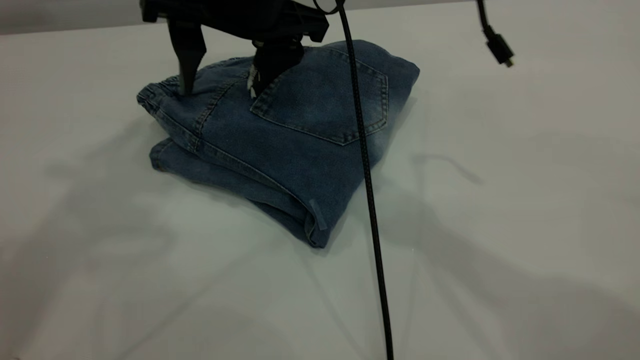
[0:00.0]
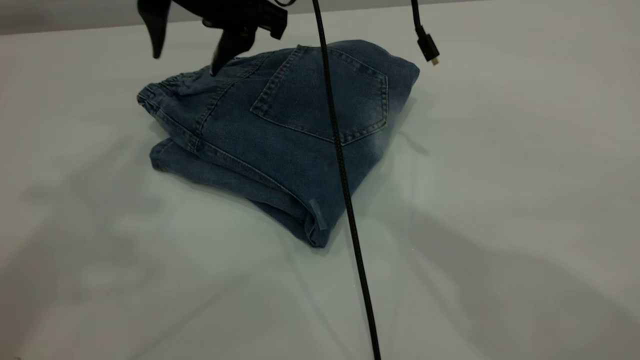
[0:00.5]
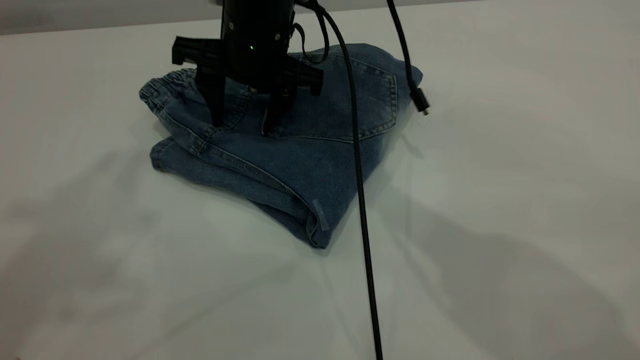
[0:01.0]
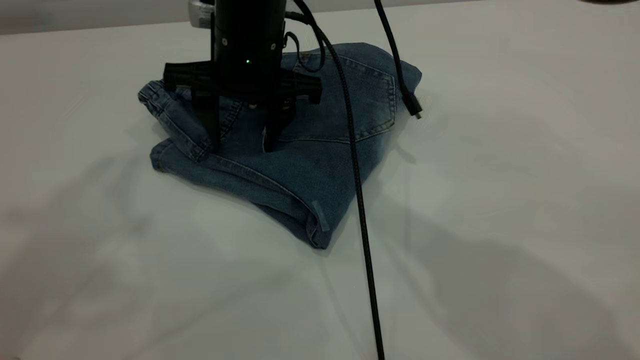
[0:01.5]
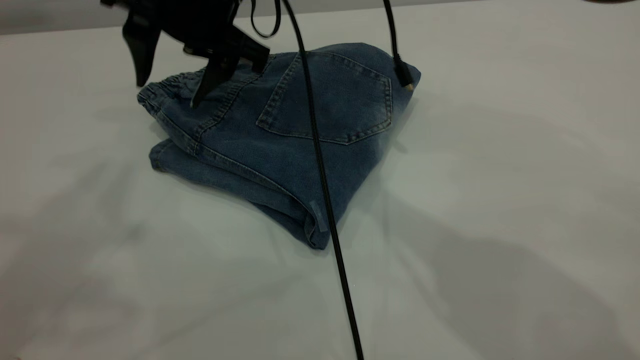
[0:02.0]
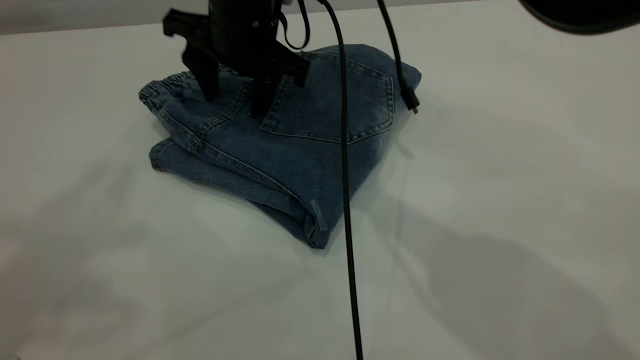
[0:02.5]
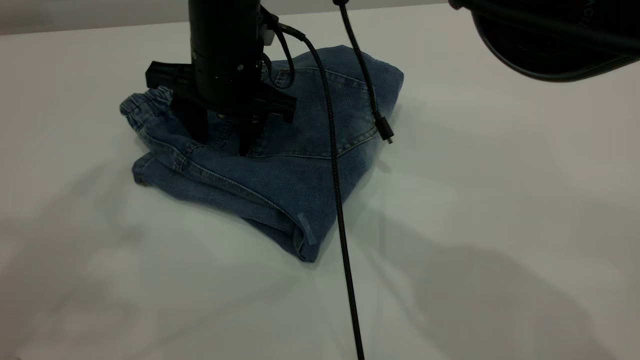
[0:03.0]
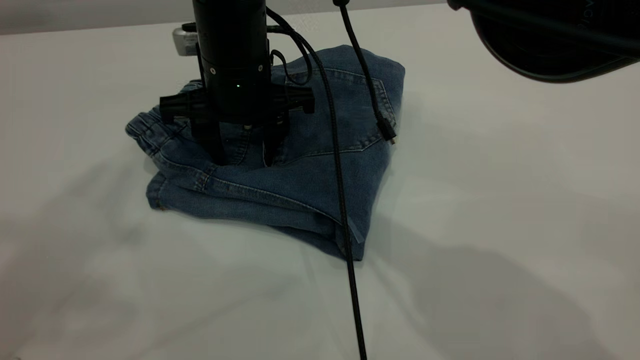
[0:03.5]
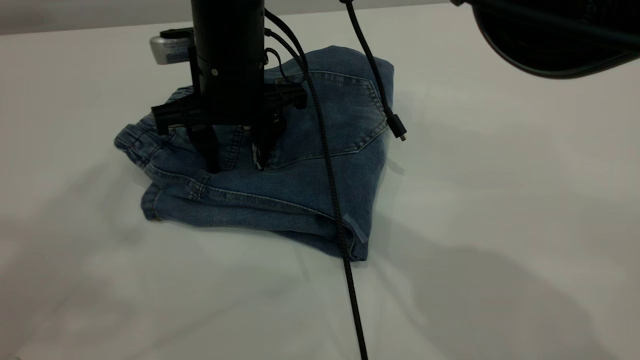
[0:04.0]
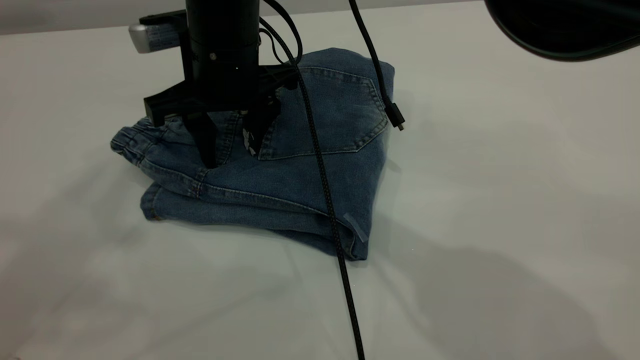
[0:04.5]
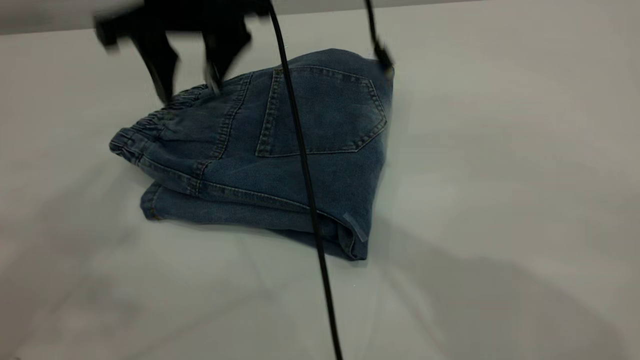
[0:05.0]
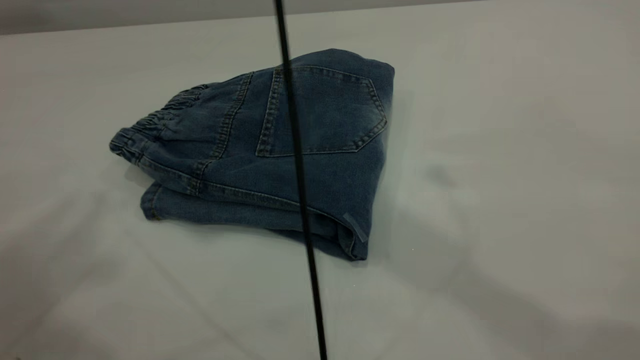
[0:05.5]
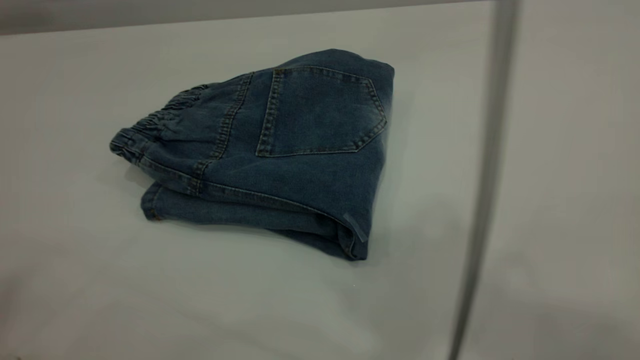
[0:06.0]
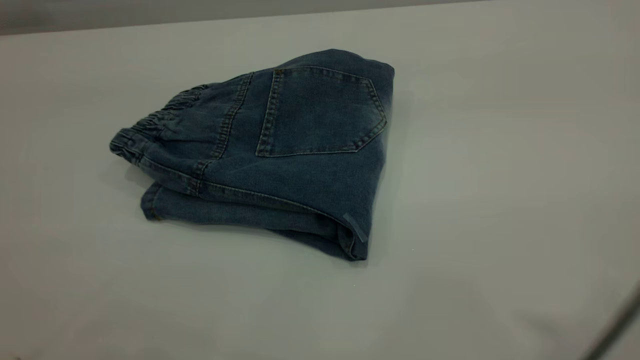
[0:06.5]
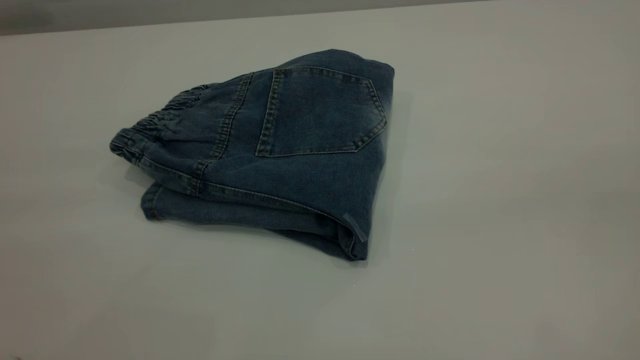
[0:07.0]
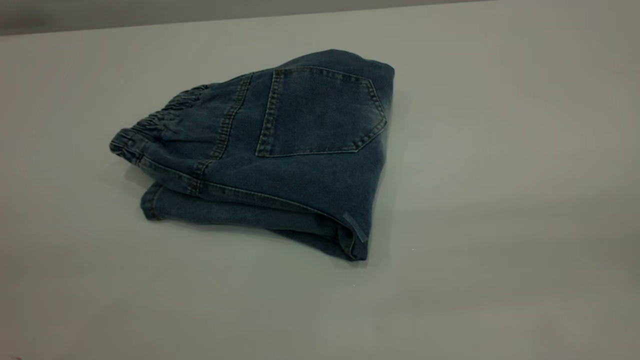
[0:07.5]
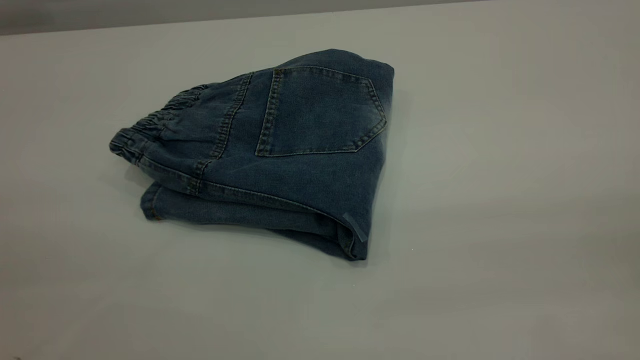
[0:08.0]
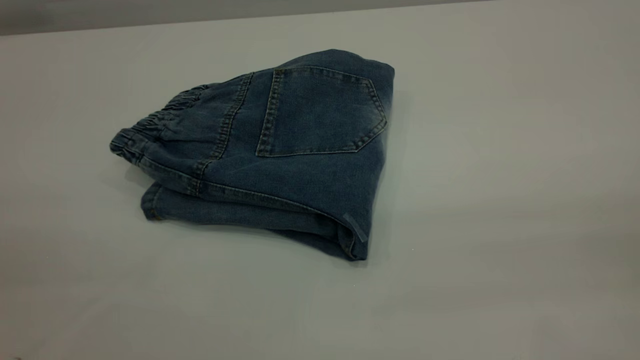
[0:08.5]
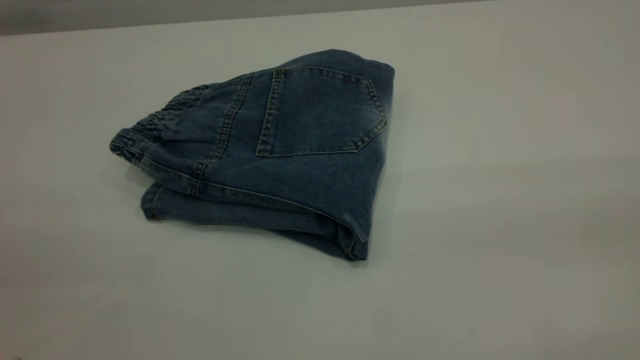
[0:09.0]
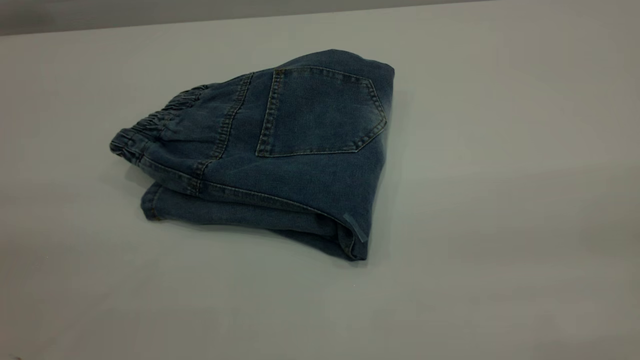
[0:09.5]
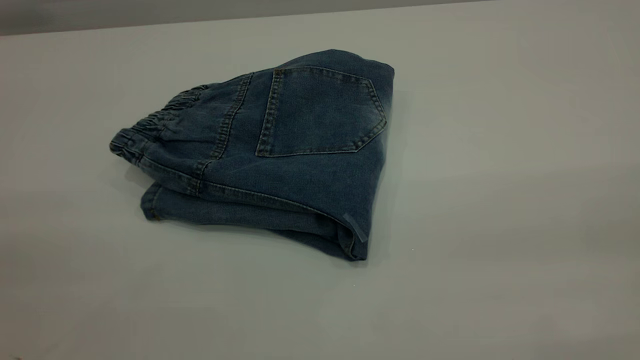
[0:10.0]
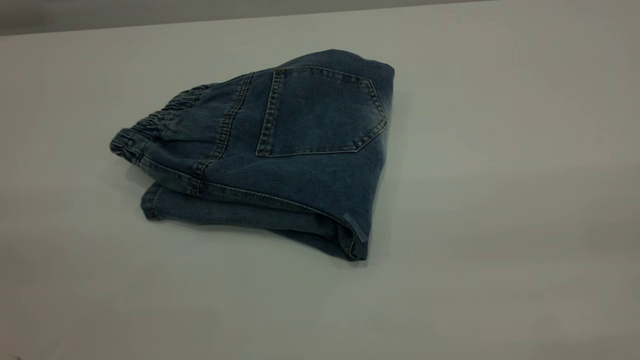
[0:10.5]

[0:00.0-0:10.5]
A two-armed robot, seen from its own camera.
0:00.0 to 0:02.0: The left gripper heads backward, covering approximately 5 cm, while the right gripper changes place by some 5 cm.
0:02.0 to 0:04.0: The right gripper is displaced downward by about 5 cm.
0:04.0 to 0:06.5: The right gripper shifts some 50 cm upward, to the right and backward. The left gripper travels backward by roughly 15 cm.
0:06.5 to 0:08.5: The right gripper heads downward, to the right and backward, covering some 20 cm.

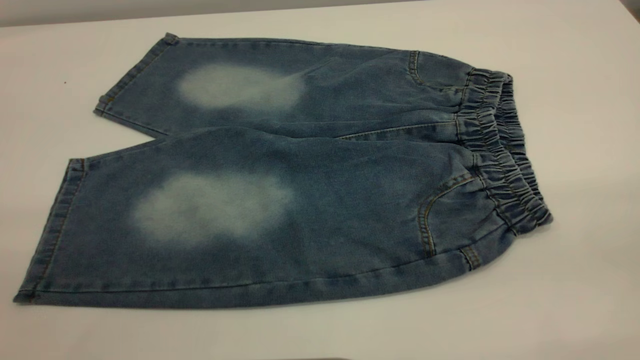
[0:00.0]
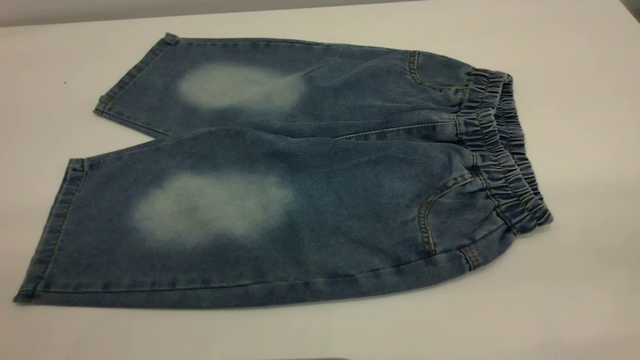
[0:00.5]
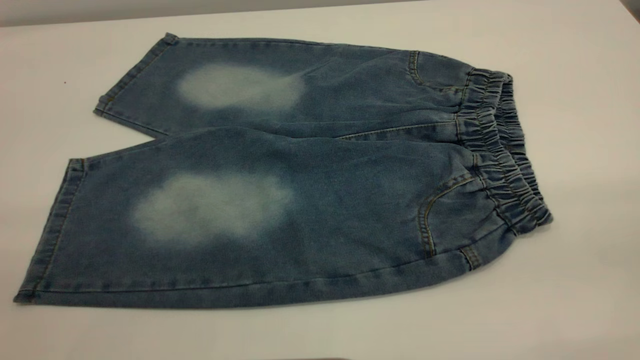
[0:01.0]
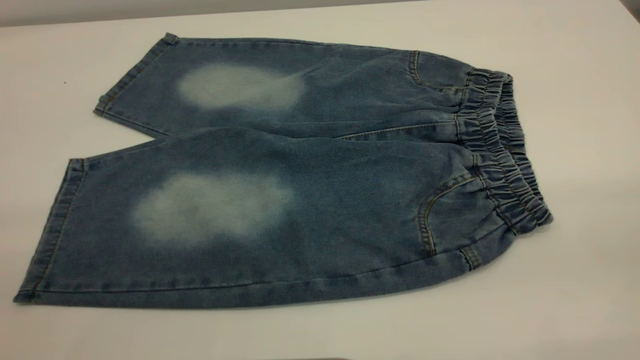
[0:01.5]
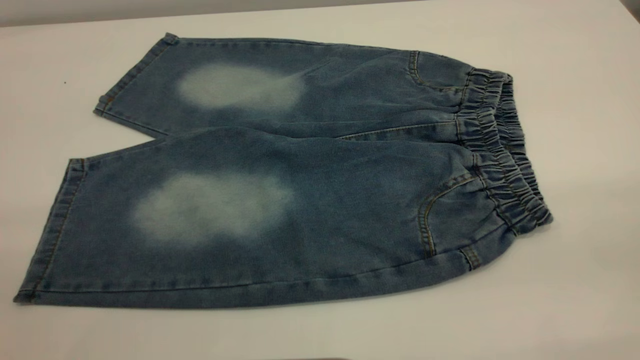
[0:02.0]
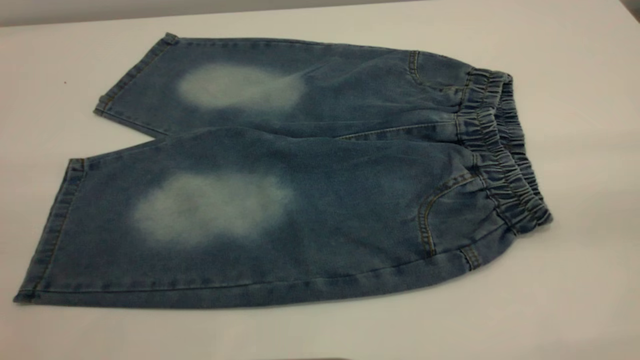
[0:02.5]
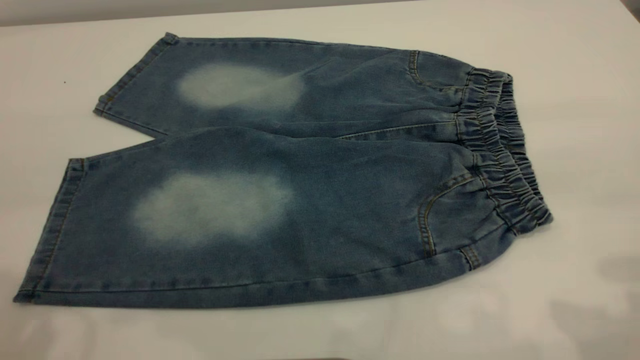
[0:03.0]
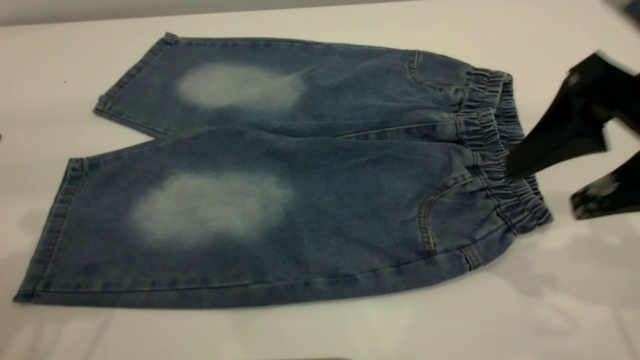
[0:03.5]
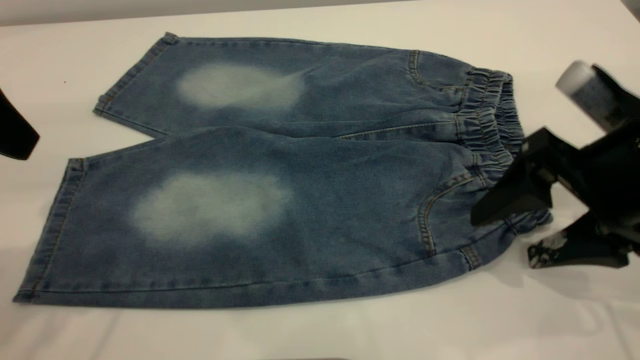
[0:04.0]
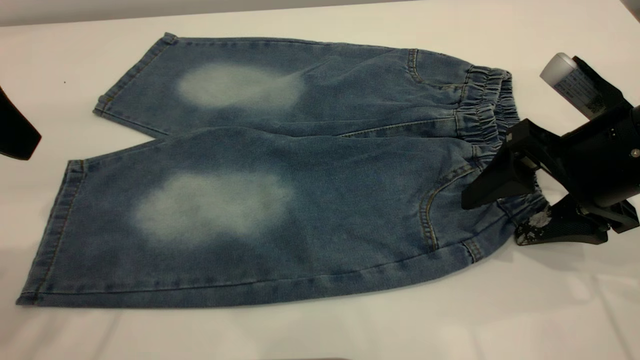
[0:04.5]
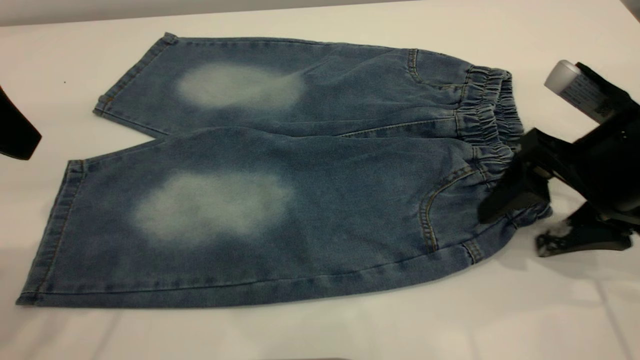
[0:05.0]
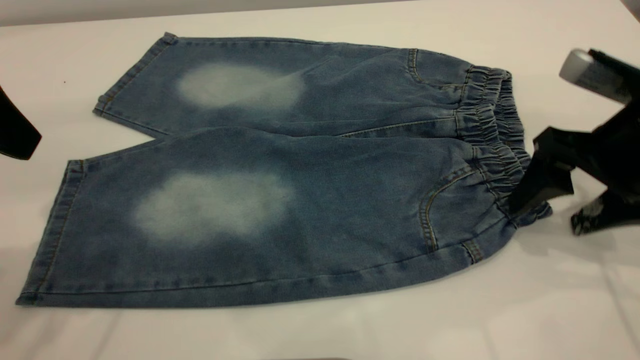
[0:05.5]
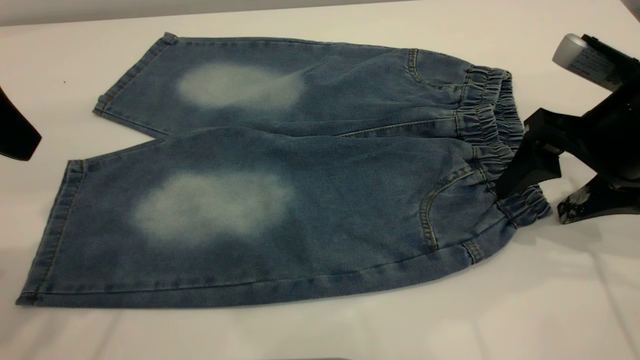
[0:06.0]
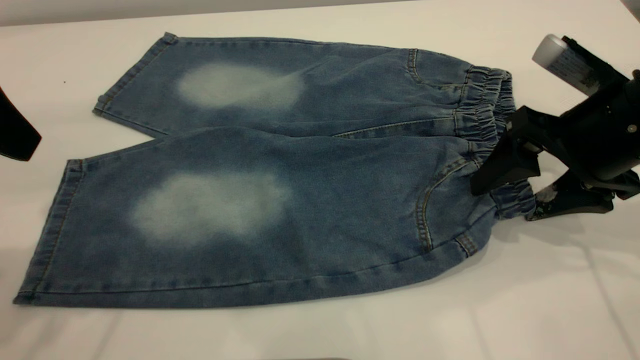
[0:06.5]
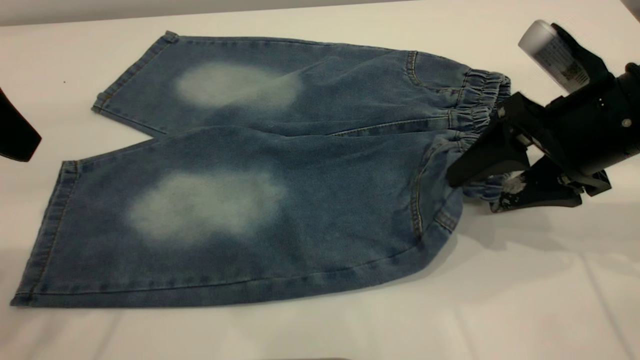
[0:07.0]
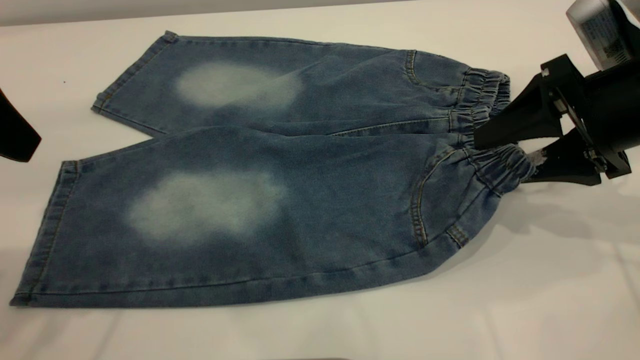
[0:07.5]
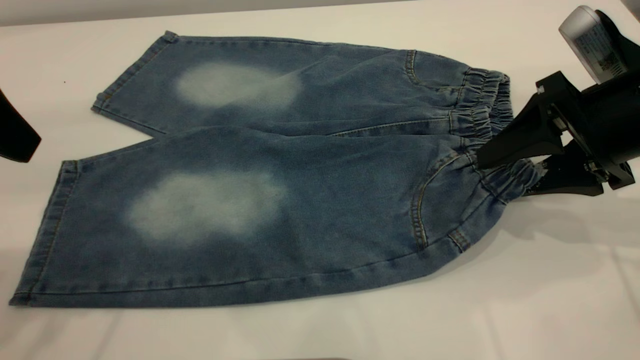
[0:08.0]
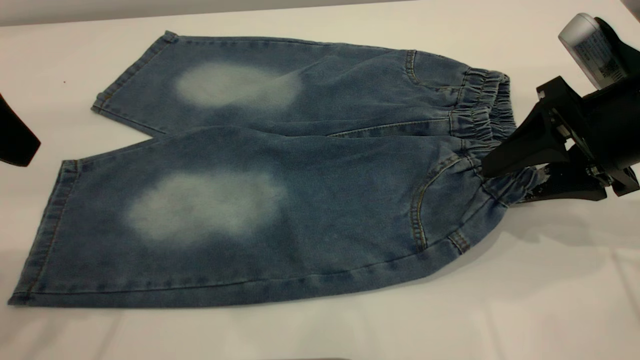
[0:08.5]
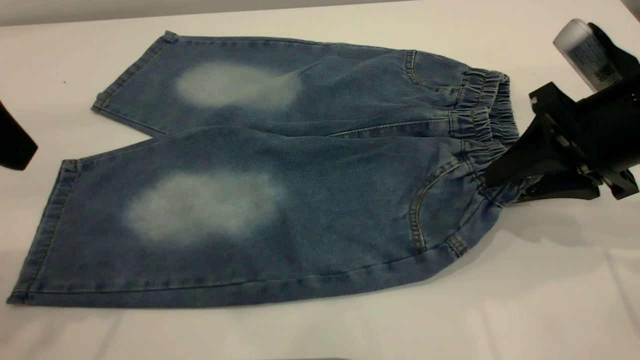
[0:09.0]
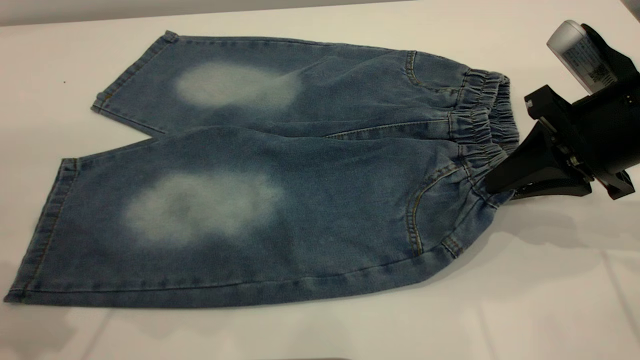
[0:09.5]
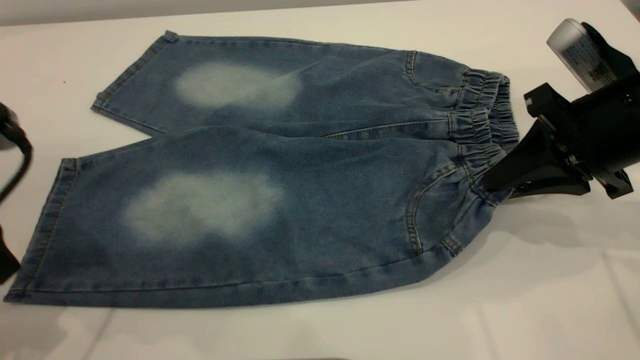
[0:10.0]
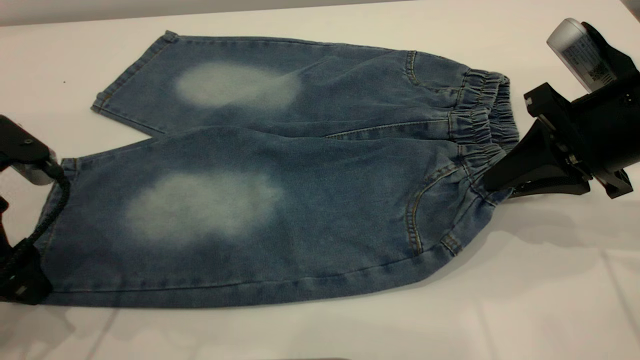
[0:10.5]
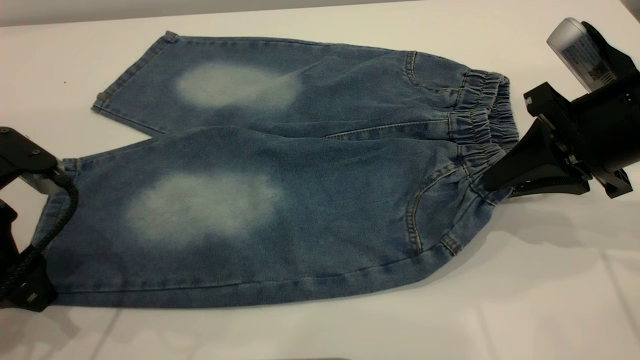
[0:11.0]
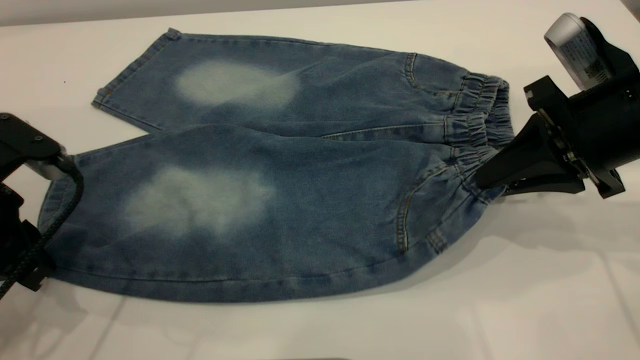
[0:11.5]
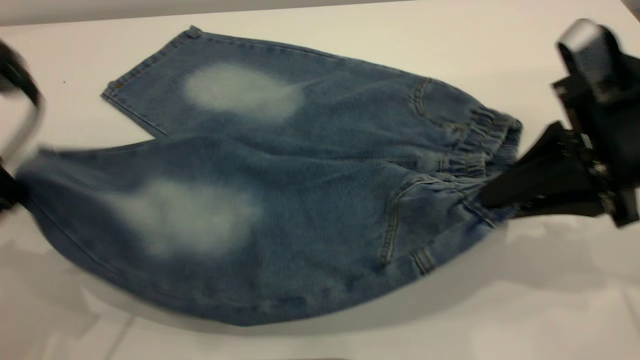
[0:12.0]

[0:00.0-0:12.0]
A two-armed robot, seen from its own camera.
0:00.0 to 0:02.0: Both grippers stay about where they are.
0:02.0 to 0:04.0: The left gripper heads forward, covering roughly 25 cm. The right gripper goes approximately 35 cm forward and downward.
0:04.0 to 0:06.0: There are only small adjustments of the grippers.
0:08.0 to 0:10.0: The right gripper closes; the left gripper shifts about 10 cm downward.
0:10.0 to 0:12.0: The left gripper goes roughly 5 cm upward, and closes up.
